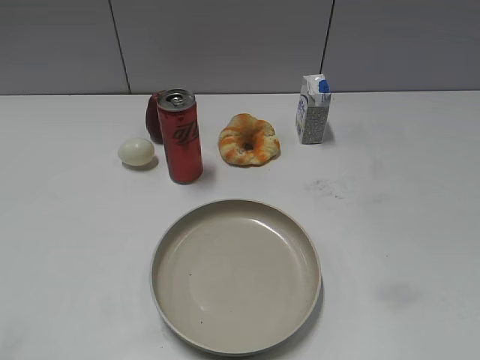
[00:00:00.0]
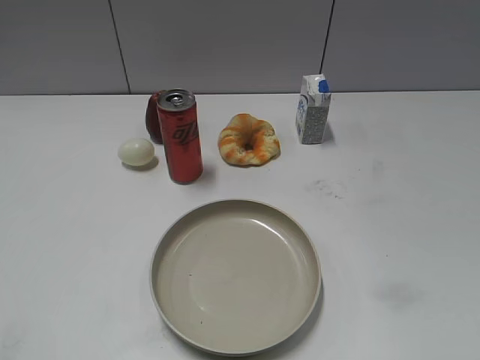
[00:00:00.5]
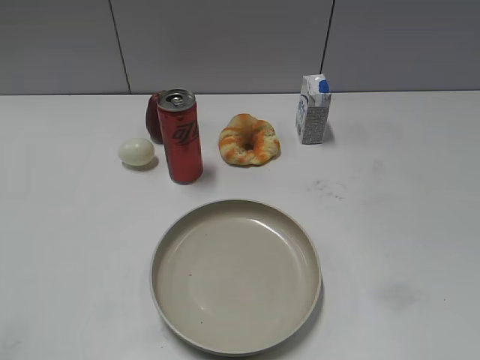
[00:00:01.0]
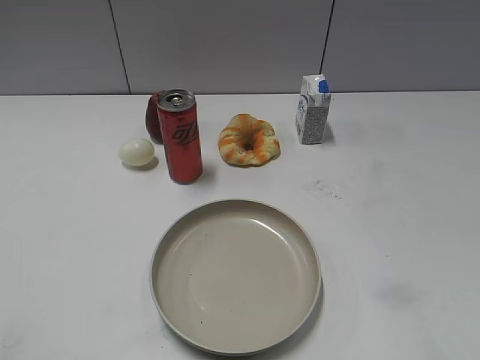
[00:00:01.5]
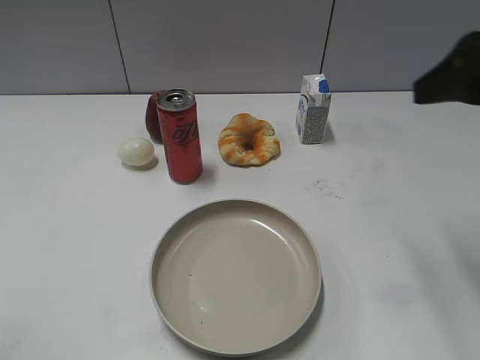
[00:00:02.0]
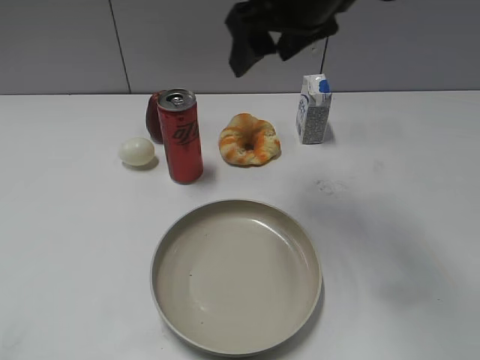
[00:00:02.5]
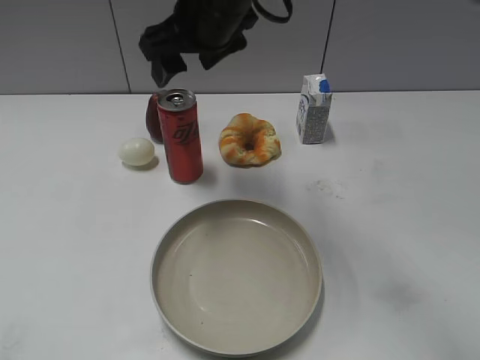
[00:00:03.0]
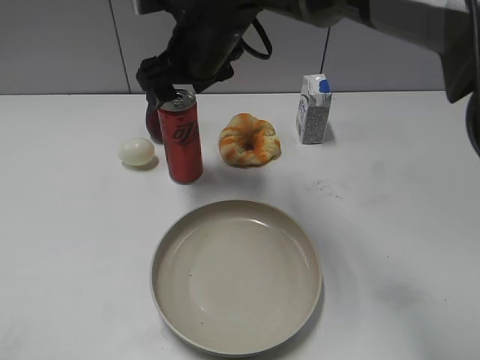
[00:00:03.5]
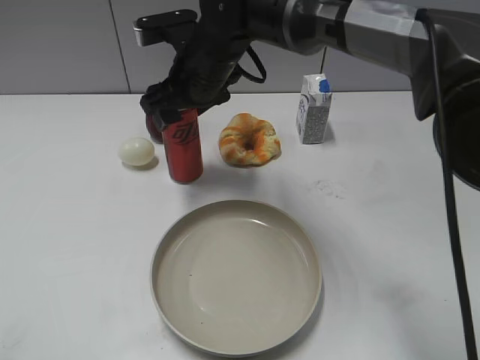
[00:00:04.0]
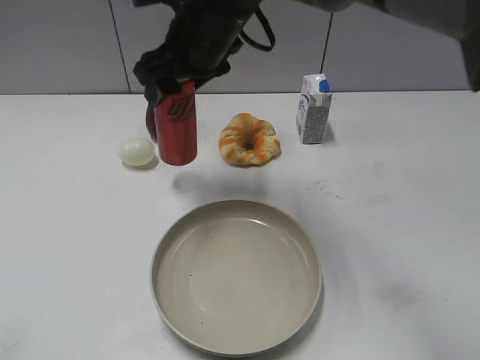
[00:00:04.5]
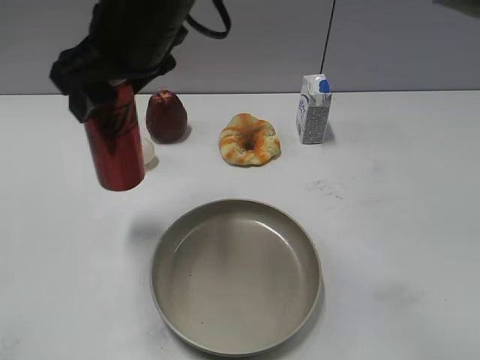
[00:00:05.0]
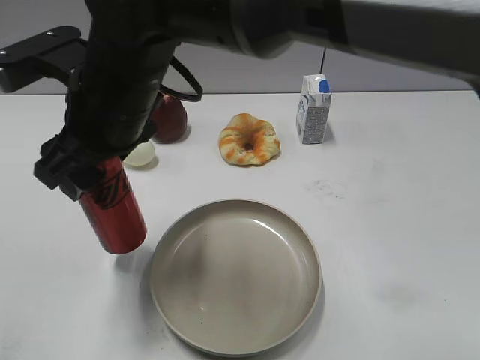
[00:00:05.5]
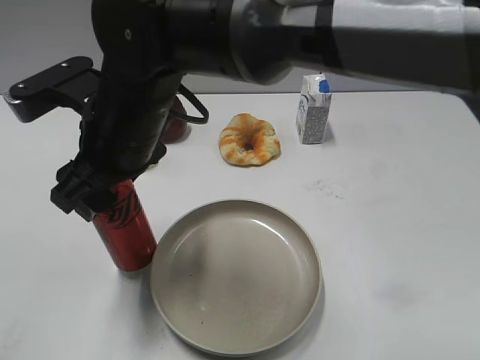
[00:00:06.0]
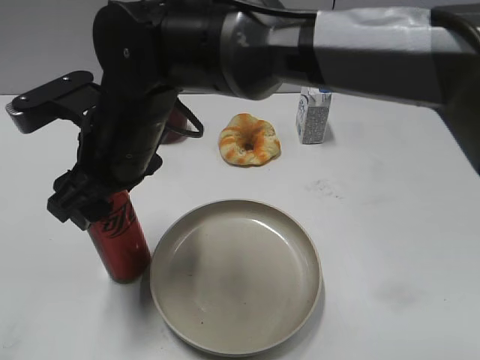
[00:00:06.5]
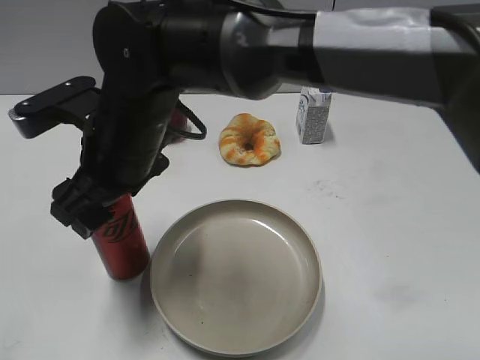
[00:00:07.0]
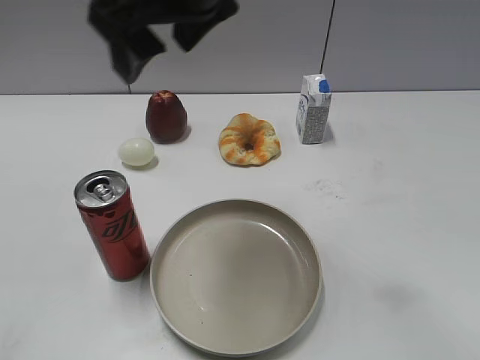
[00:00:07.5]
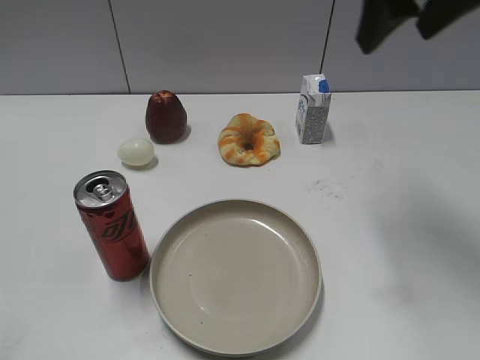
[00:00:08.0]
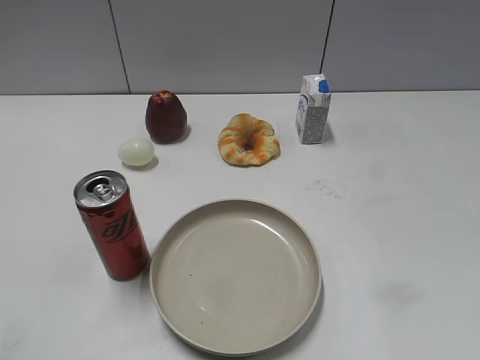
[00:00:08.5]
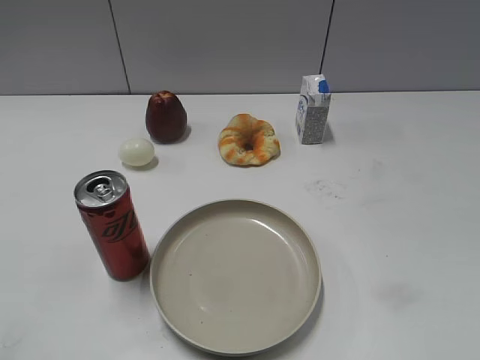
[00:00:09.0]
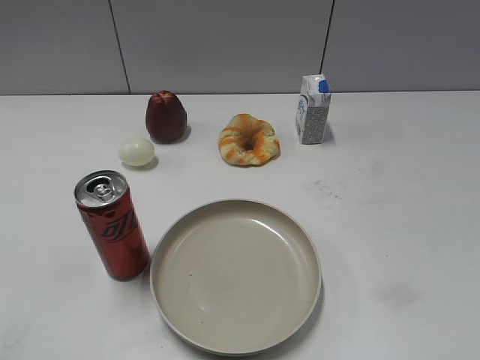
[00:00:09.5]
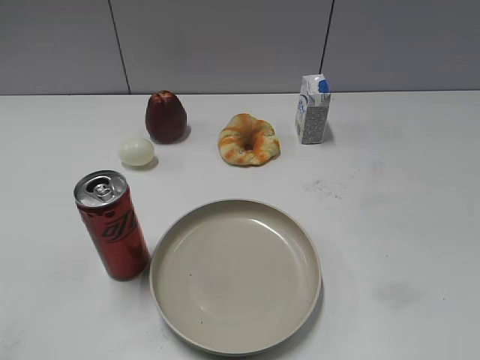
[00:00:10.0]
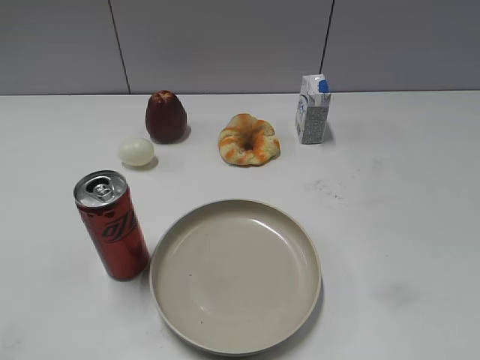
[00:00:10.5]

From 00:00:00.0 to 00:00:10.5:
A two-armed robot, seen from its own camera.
Step, from 00:00:01.5 to 00:00:04.0: Grasp the cola with right gripper.
Step, from 00:00:04.5 to 00:00:07.0: Place the cola on the table with right gripper.
From 00:00:02.0 to 00:00:04.0: The right gripper is displaced to the left, forward and downward by roughly 35 cm, and opens, then closes once more.
From 00:00:04.0 to 00:00:06.5: The right gripper travels backward and to the left by about 15 cm.
From 00:00:06.5 to 00:00:08.5: The right gripper travels to the right and upward by roughly 40 cm, and opens.
